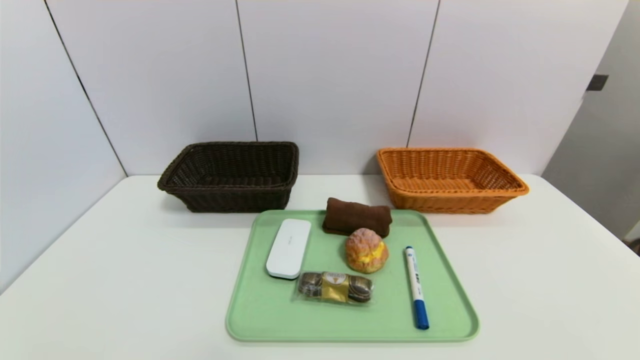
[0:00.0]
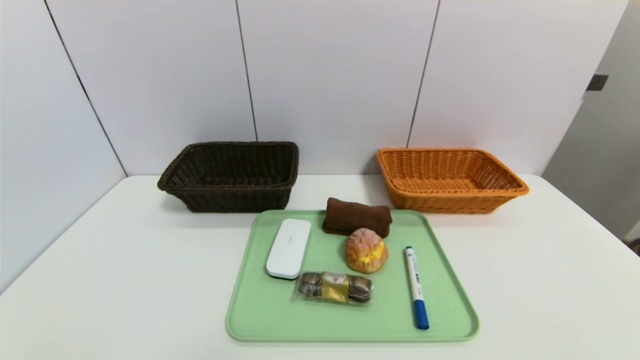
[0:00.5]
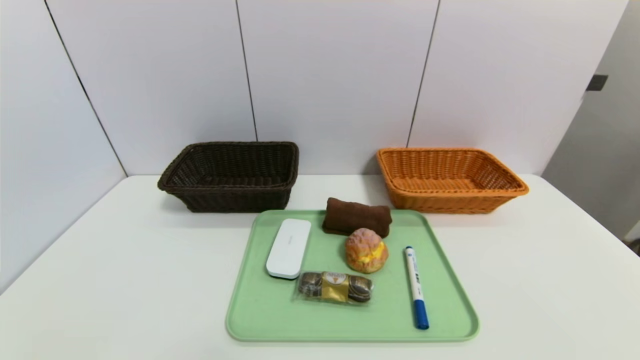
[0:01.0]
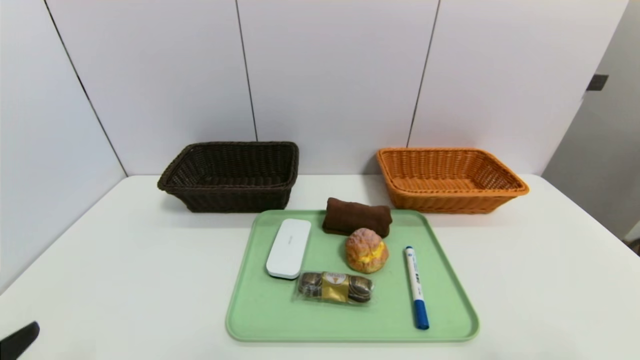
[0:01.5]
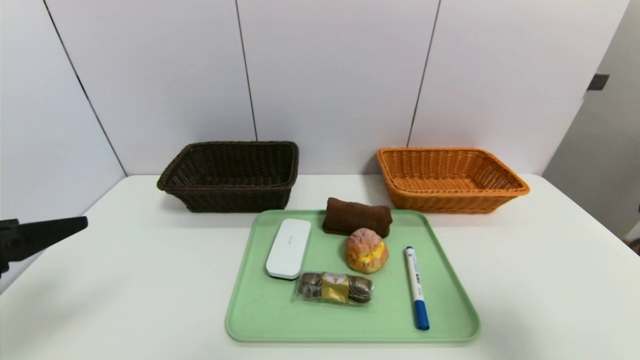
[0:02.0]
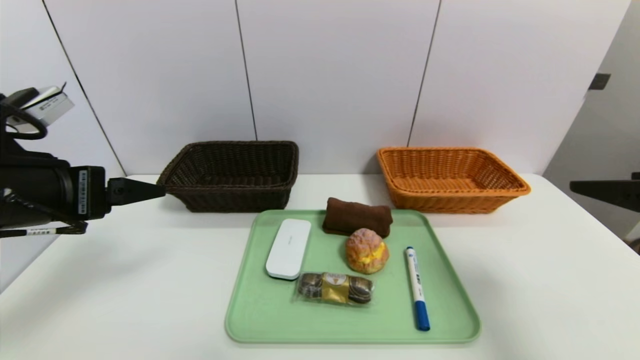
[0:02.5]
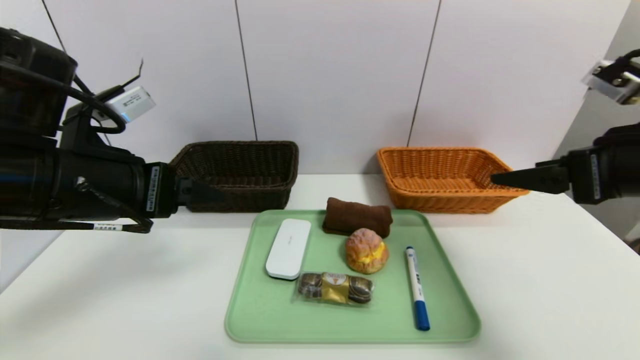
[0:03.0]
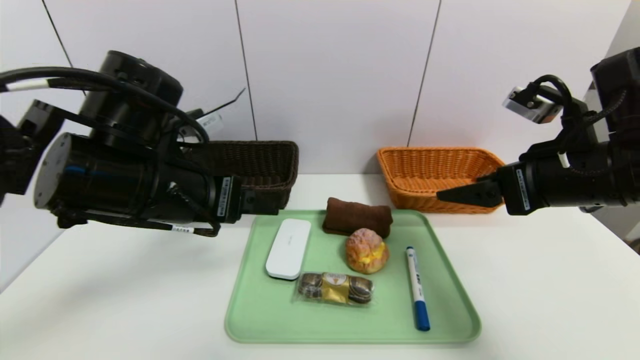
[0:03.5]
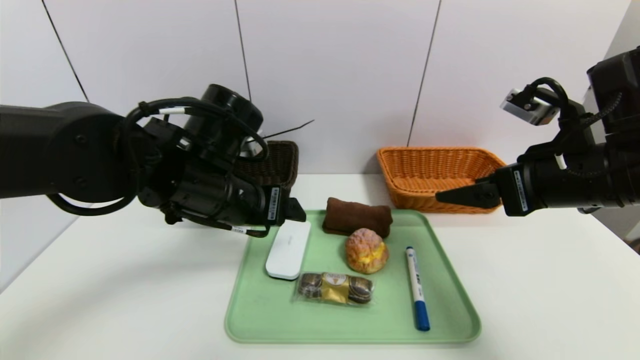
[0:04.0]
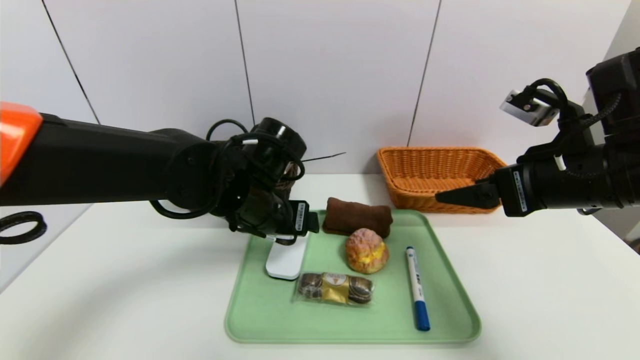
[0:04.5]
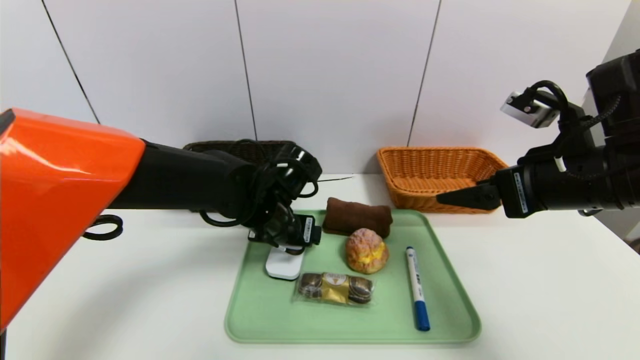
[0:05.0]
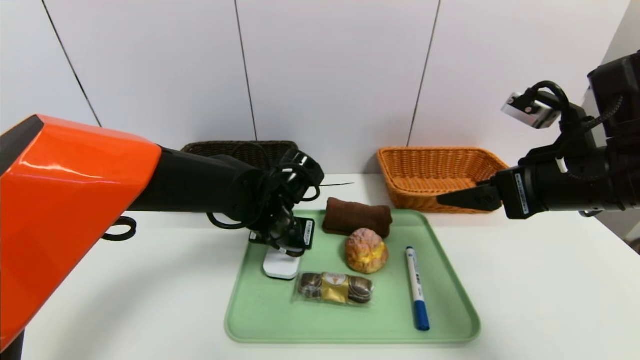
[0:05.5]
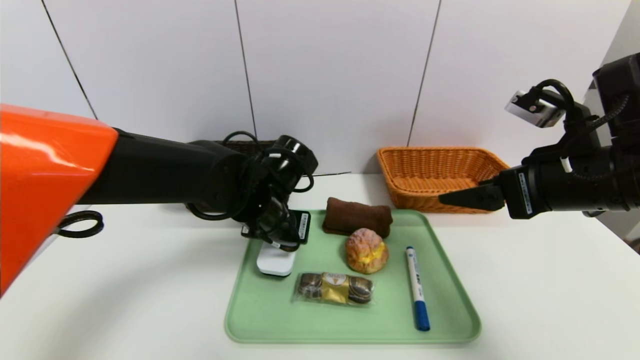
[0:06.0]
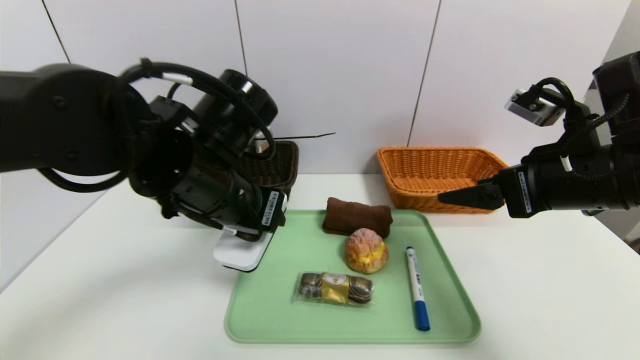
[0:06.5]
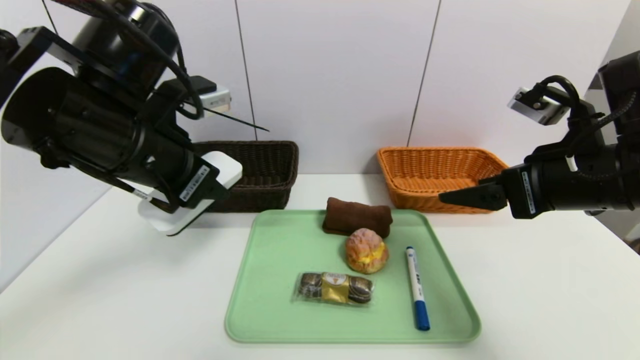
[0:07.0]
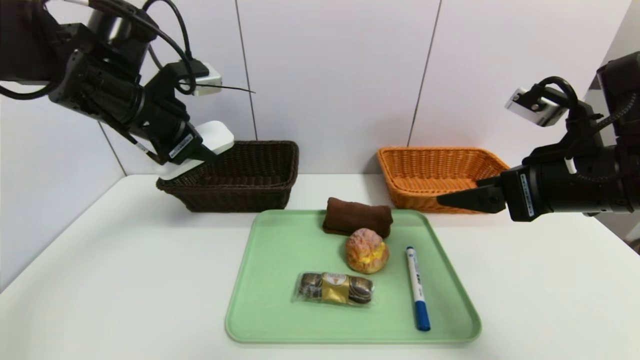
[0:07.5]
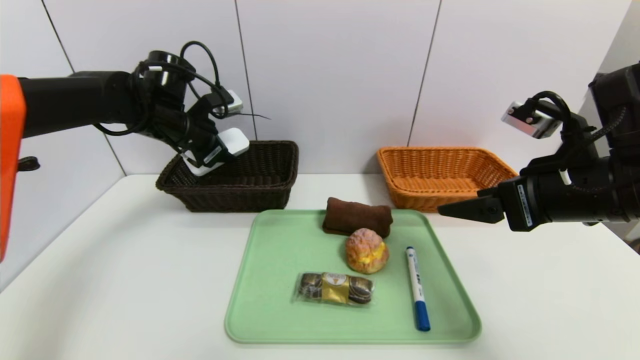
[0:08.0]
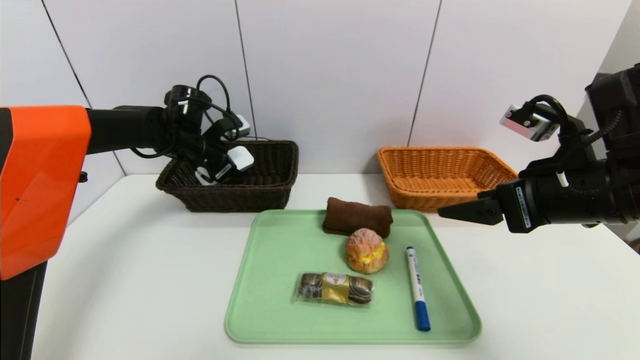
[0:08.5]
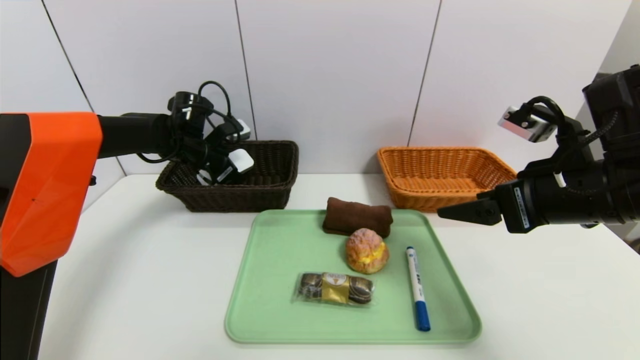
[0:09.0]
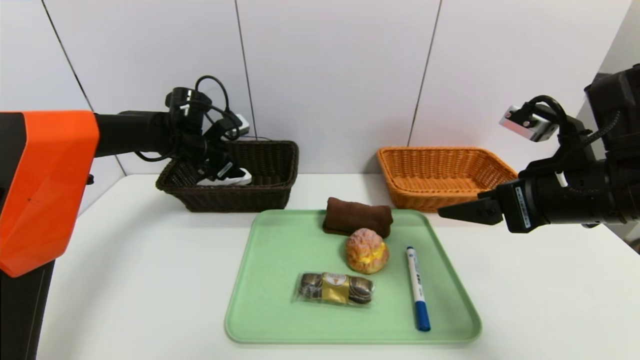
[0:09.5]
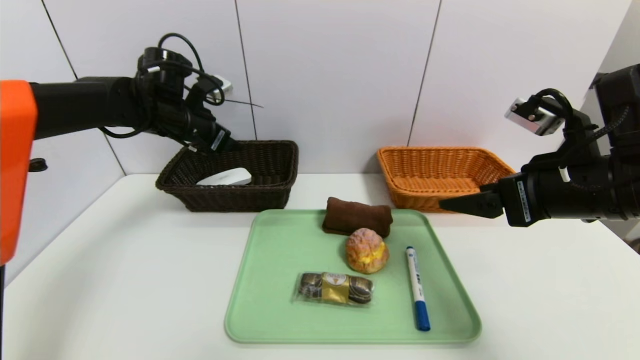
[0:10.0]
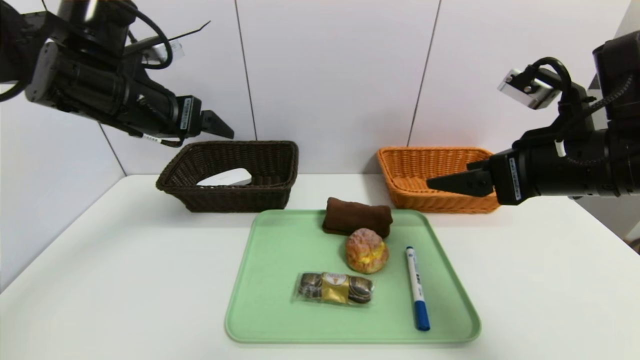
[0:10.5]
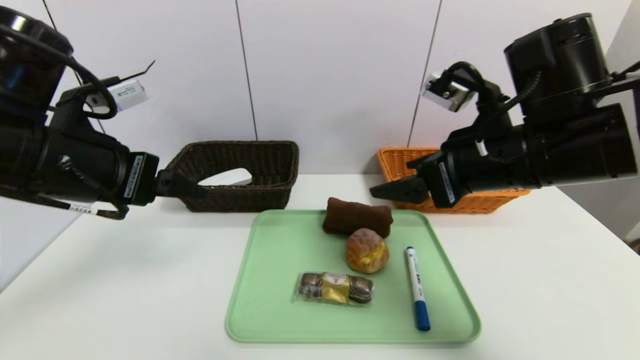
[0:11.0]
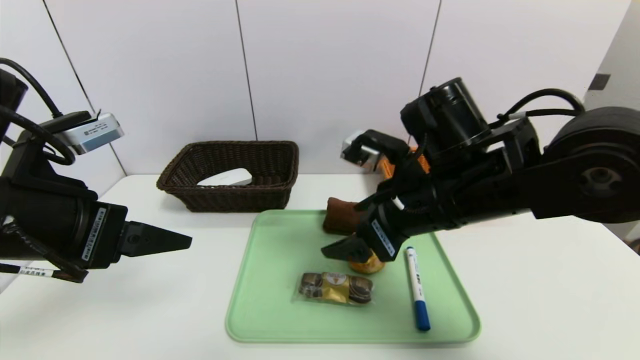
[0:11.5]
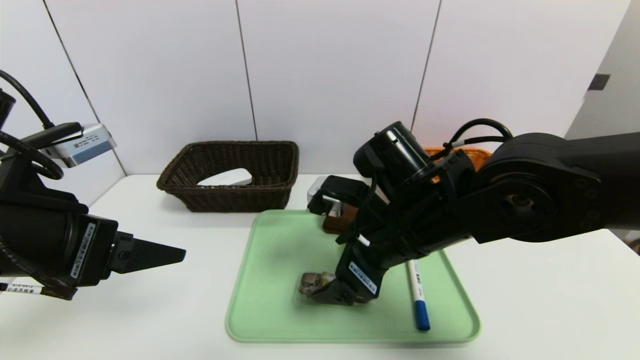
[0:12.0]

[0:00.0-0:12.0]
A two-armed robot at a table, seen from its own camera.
Task of the whole recording: place the food in the right basket with the right gripper, and place the non food items in the left basket with the left gripper.
Step, 0:00.0 to 0:09.5: Grasp the white eraser and put it in the left basket.
0:00.0 to 0:02.0: The grippers both shift upward and forward by approximately 25 cm.
0:02.0 to 0:04.0: The left gripper is displaced to the right and forward by about 25 cm. The right gripper goes about 15 cm forward and to the left.
0:04.0 to 0:06.0: The left gripper travels downward by about 5 cm, and closes up.
0:06.0 to 0:08.0: The left gripper heads to the left, forward and upward, covering approximately 20 cm.
0:08.0 to 0:10.0: The left gripper opens.
0:10.0 to 0:12.0: The left gripper moves backward, about 30 cm. The right gripper goes about 15 cm to the left.

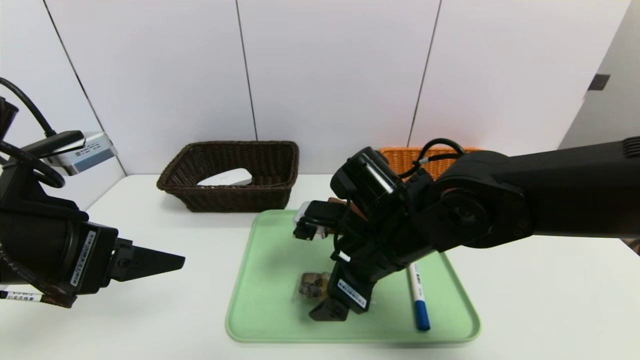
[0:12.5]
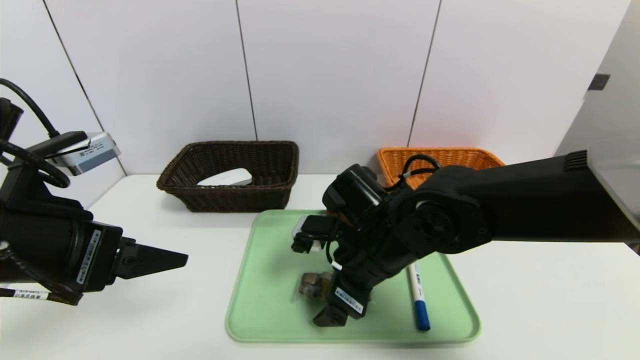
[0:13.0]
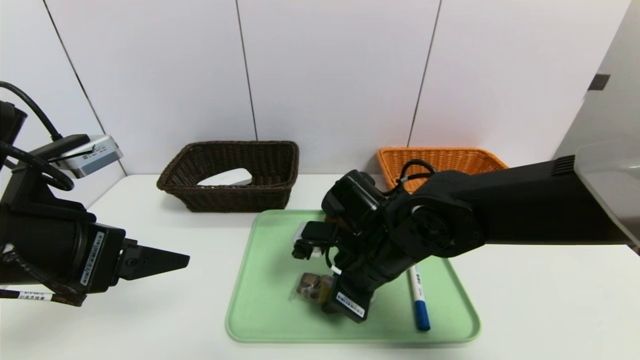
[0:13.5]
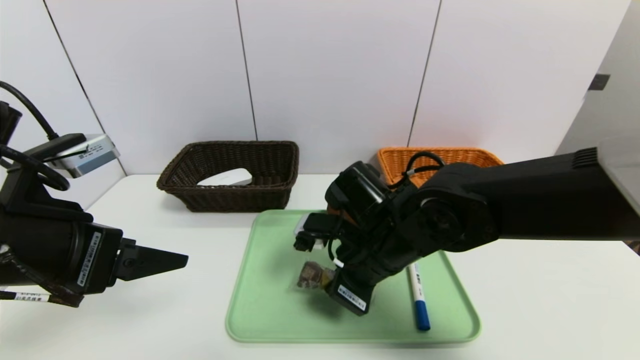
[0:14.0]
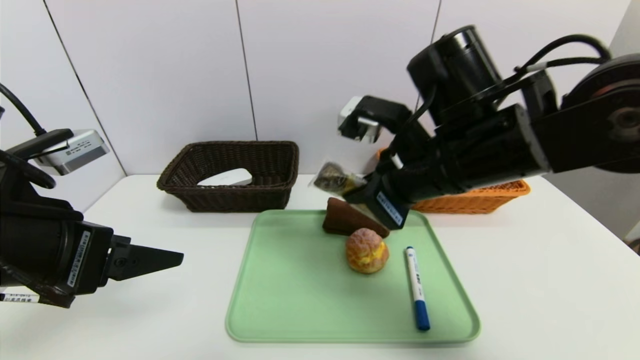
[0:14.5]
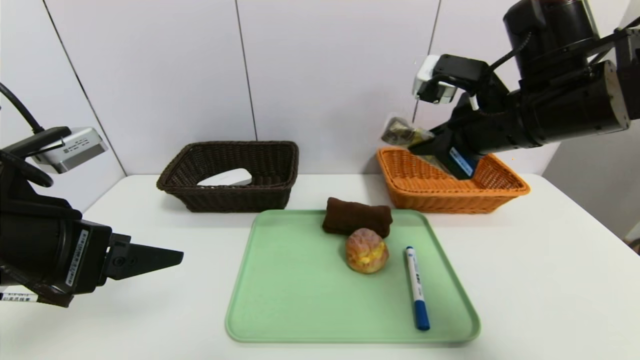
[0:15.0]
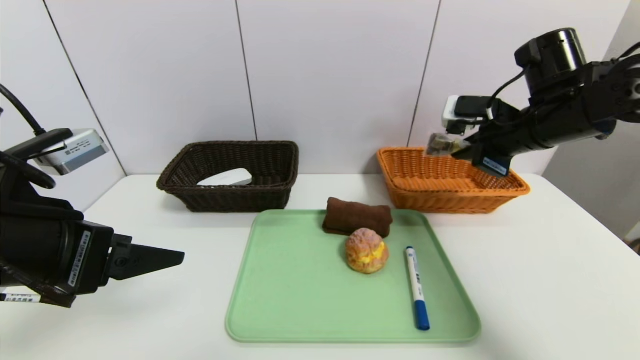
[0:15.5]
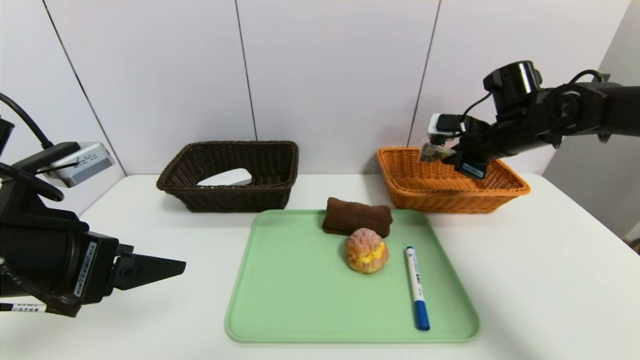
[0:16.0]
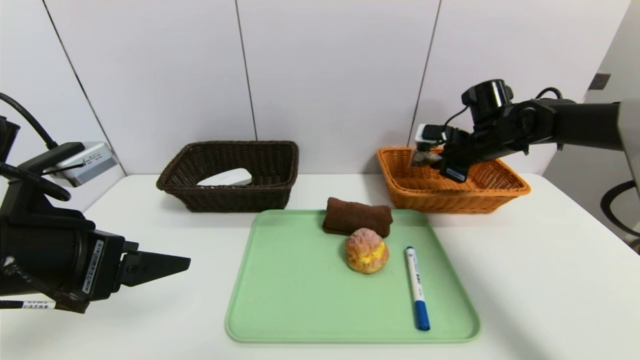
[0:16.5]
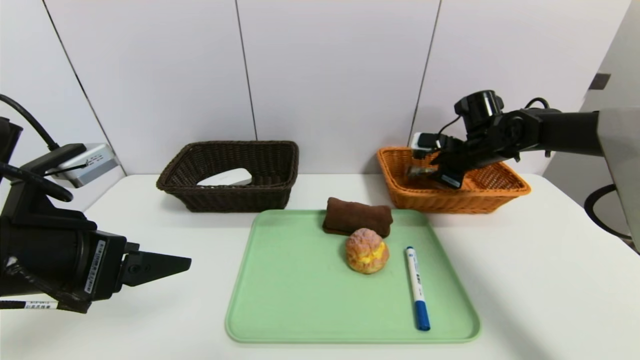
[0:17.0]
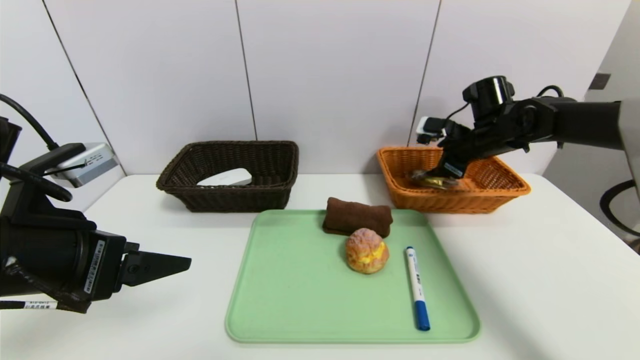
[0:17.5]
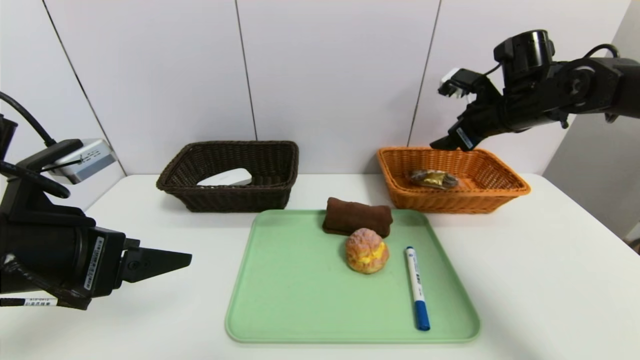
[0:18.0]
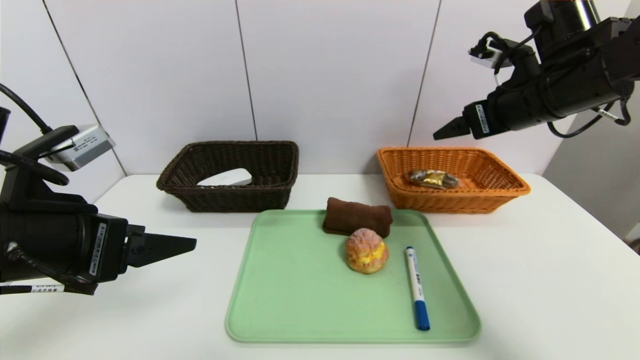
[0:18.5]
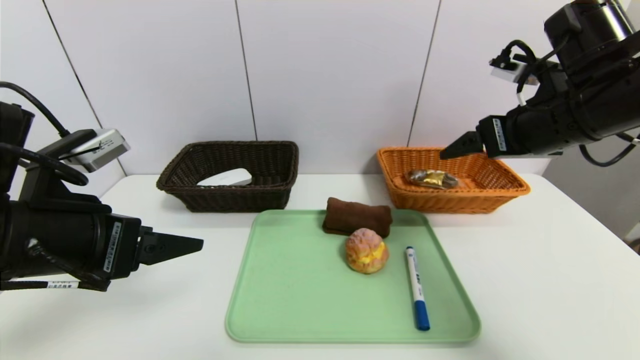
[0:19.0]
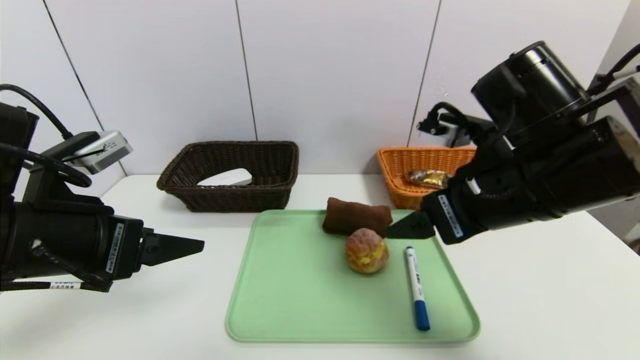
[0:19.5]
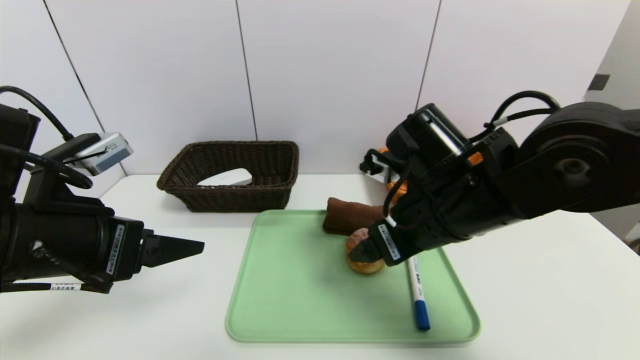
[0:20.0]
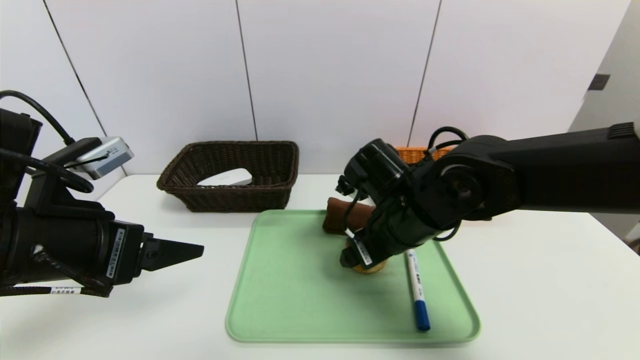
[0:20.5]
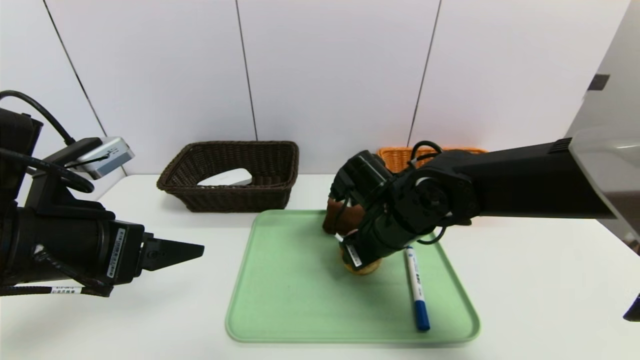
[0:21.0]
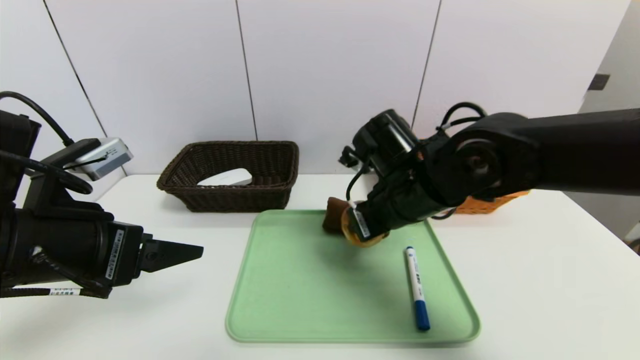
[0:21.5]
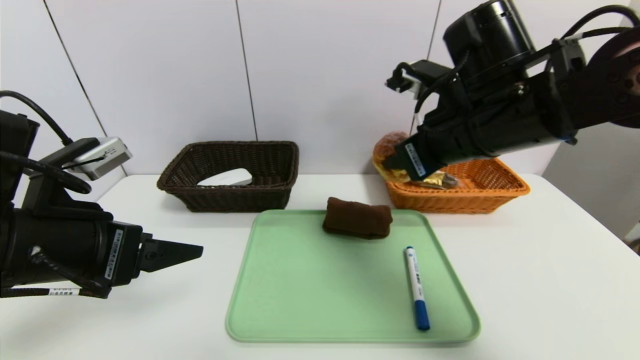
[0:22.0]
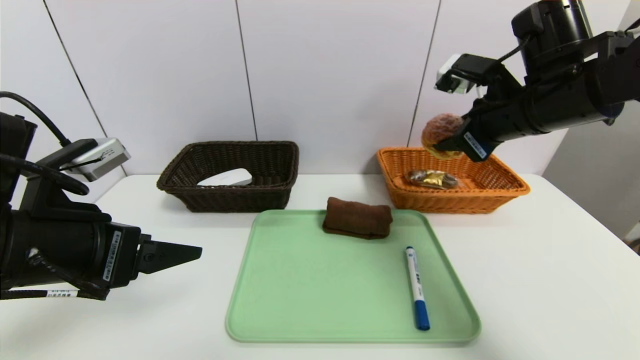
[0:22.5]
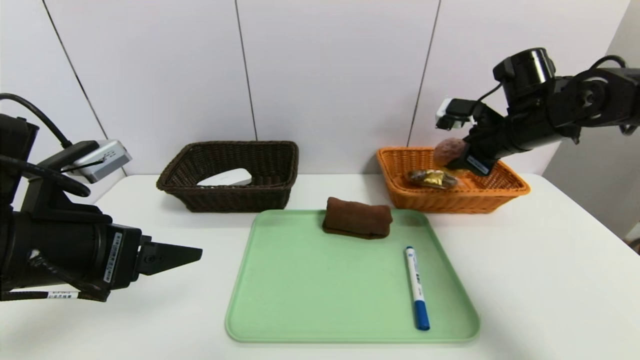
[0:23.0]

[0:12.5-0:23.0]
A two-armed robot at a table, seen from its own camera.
Task of the whole recording: place the food in the right basket with the right gripper, and place the non food items in the left basket with the left gripper.
Step, 0:12.5 to 0:17.0: Grasp the chocolate and put it in the right basket.
0:12.5 to 0:14.5: The right gripper heads upward, covering approximately 10 cm, and closes up.
0:14.5 to 0:16.5: The right gripper travels forward and to the right by roughly 25 cm.
0:16.5 to 0:19.0: The right gripper goes about 20 cm backward and upward, and opens up.
0:19.0 to 0:21.0: The right gripper moves to the left and downward, about 25 cm, and closes.
0:21.0 to 0:23.0: The right gripper heads to the right, forward and upward, covering approximately 25 cm.
